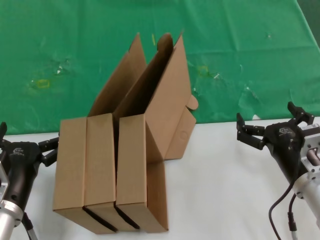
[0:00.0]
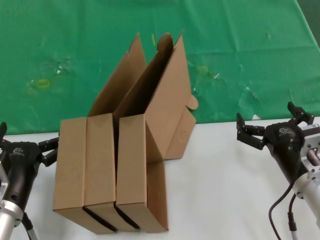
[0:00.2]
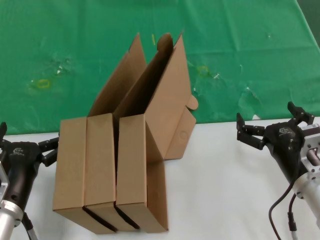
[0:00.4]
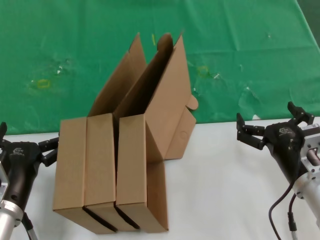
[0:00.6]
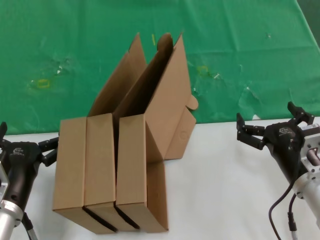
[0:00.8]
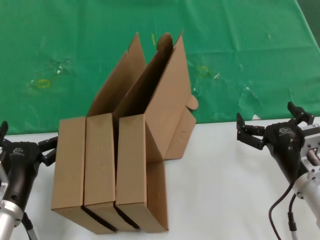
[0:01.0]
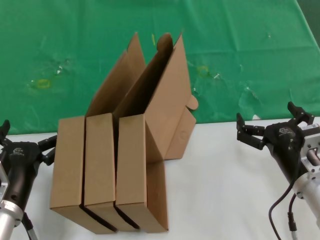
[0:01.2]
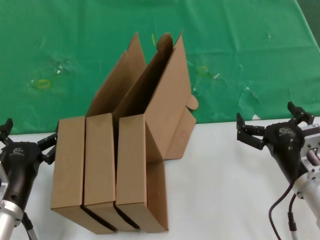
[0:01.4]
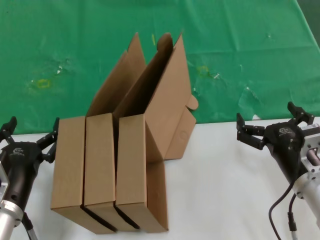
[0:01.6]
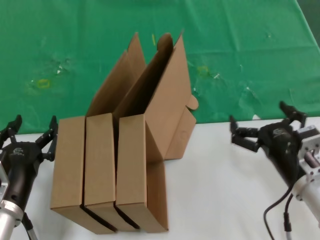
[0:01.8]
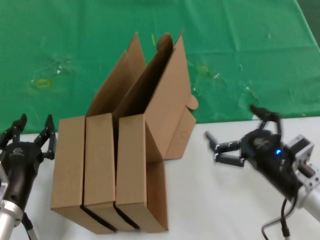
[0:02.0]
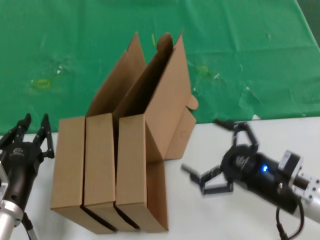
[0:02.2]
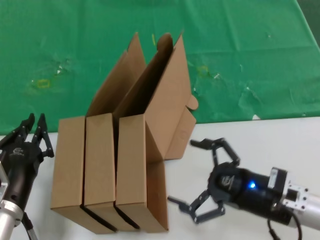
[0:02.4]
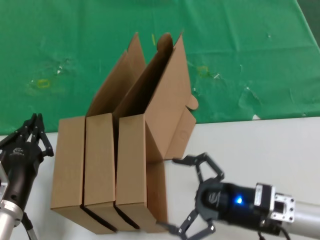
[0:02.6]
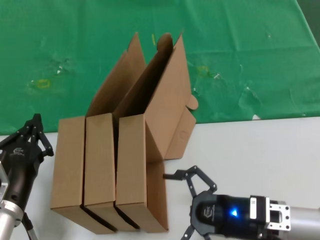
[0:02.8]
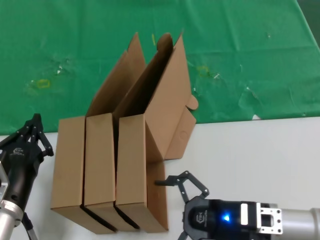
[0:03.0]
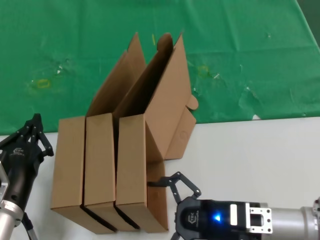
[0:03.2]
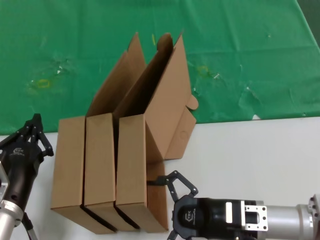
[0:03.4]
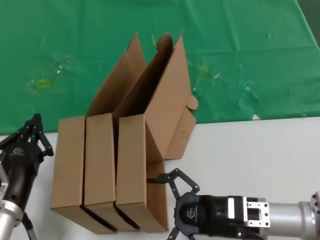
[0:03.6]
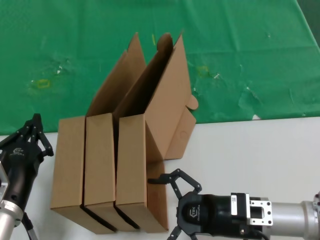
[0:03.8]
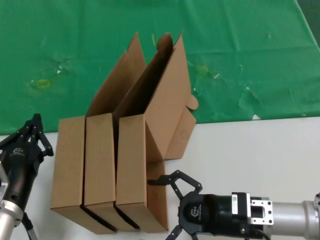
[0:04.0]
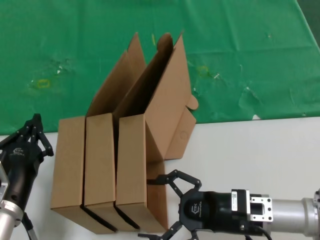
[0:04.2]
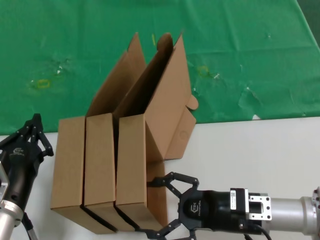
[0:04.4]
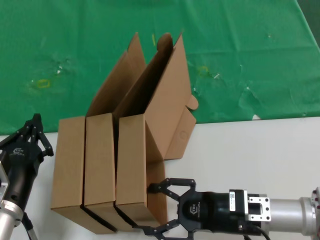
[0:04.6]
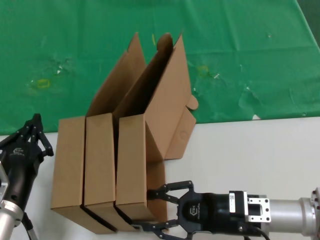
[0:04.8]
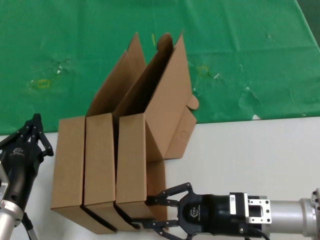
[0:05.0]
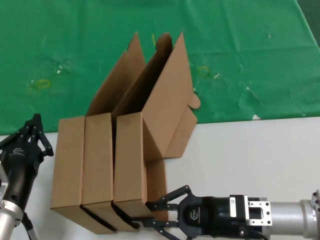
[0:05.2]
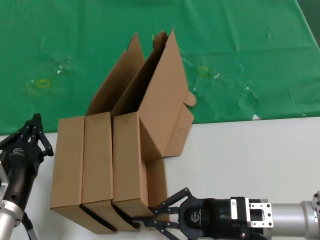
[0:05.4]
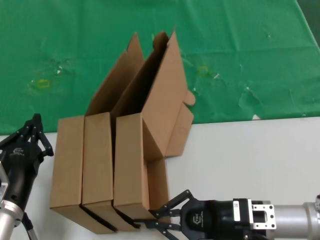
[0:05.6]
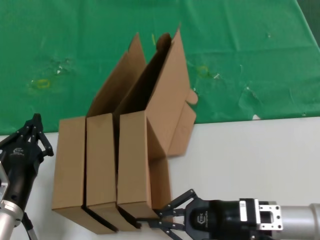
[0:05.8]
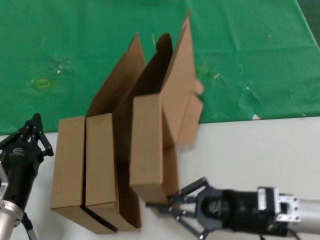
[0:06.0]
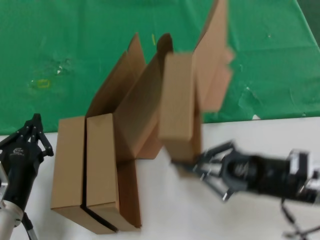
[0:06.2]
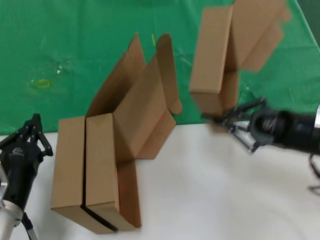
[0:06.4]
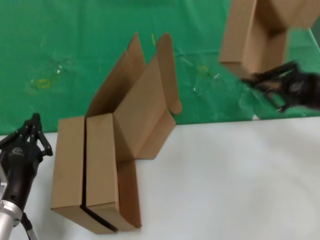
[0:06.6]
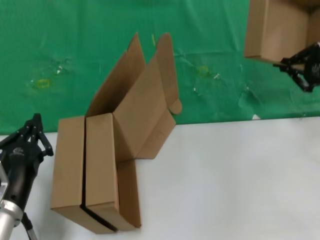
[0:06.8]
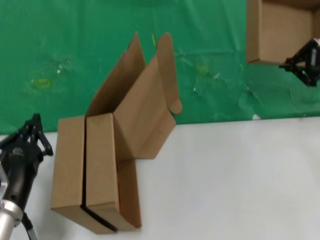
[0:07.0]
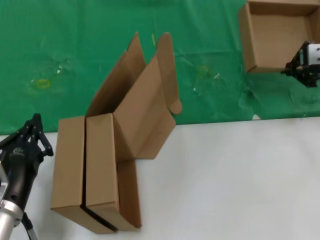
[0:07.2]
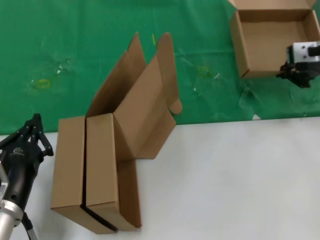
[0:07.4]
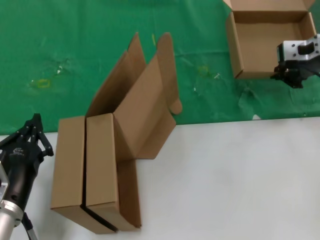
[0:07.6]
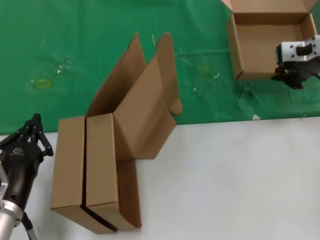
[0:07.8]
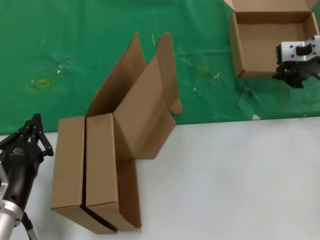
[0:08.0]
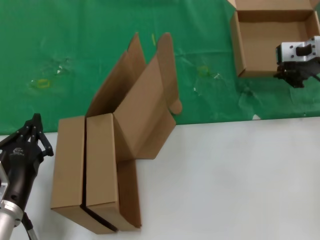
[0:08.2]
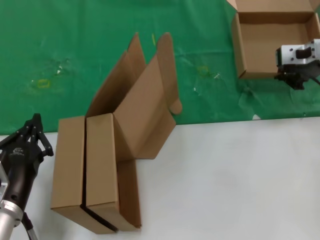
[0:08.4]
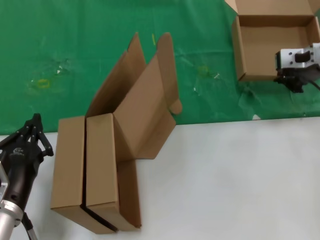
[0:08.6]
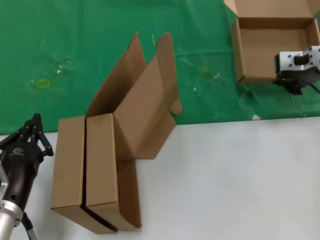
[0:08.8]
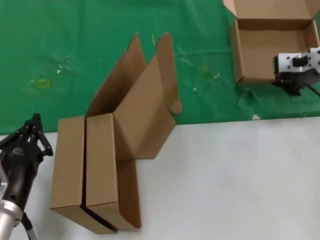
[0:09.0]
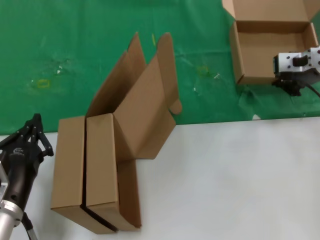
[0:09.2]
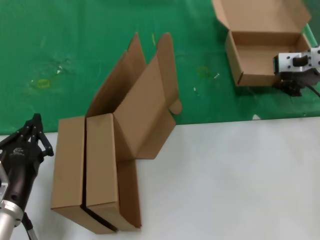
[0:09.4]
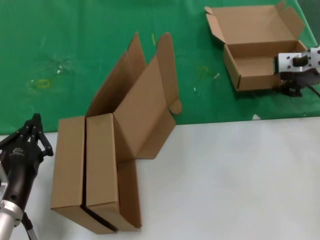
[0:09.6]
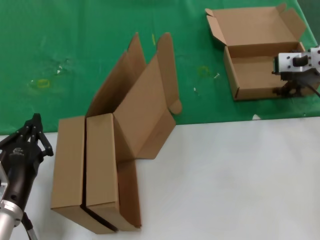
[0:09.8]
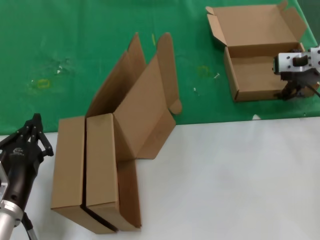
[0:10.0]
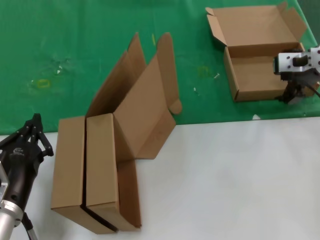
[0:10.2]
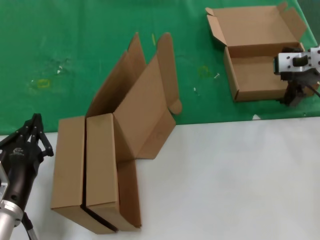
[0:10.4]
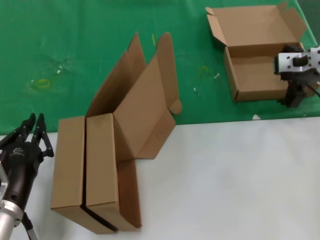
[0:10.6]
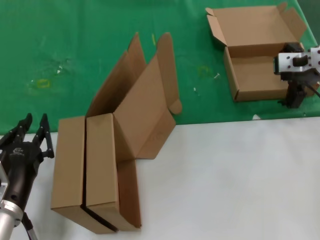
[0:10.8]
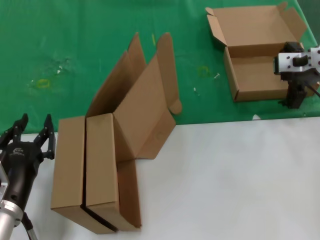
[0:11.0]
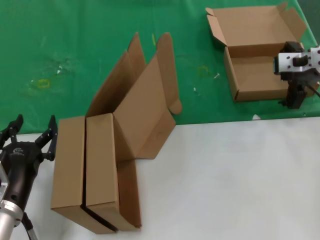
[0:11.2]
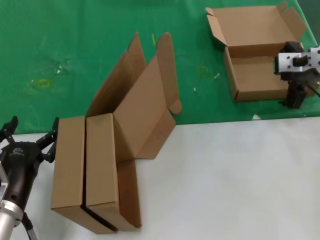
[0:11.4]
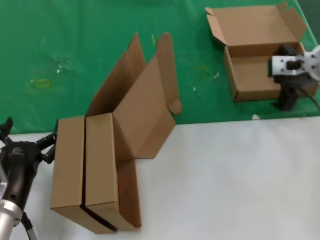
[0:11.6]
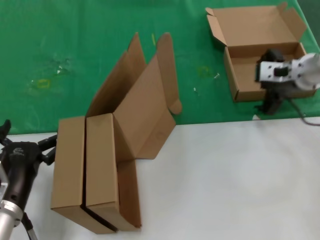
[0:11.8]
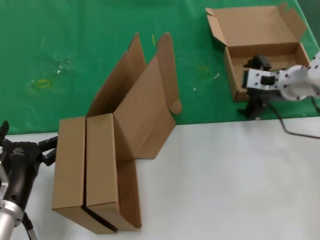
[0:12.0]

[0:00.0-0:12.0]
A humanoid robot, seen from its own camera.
Task of the whole recording: pick up the paper box and put it at the back.
Step, 0:00.0 to 0:05.4: Grasp the paper box.
Step, 0:05.6 to 0:09.8: Place the paper box on the table.
0:00.0 to 0:01.6: Neither hand changes place.
0:03.0 to 0:06.0: The hands make only small movements.
0:06.0 to 0:07.6: The right hand moves upward and forward, roughly 30 cm.
0:07.6 to 0:09.0: The hands stay close to where they were, moving slightly.
0:09.0 to 0:10.4: Both hands stay about where they are.
0:10.4 to 0:12.0: The right hand moves downward, approximately 5 cm.

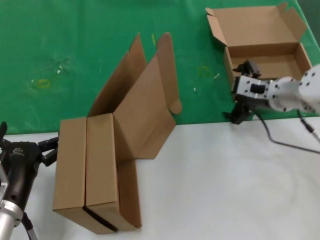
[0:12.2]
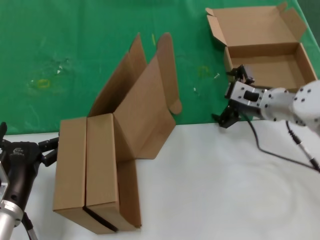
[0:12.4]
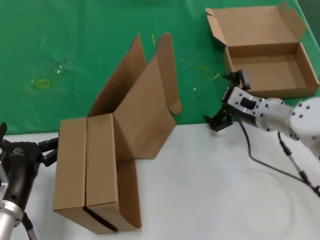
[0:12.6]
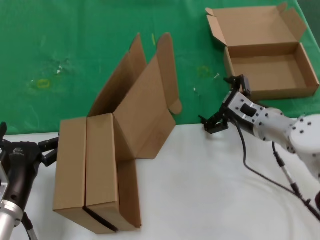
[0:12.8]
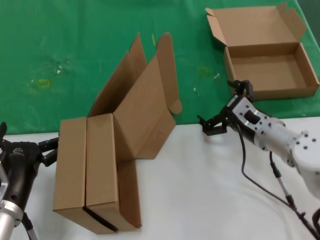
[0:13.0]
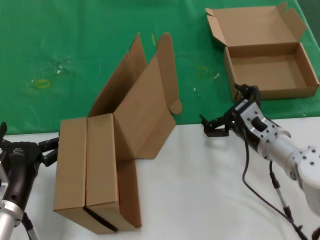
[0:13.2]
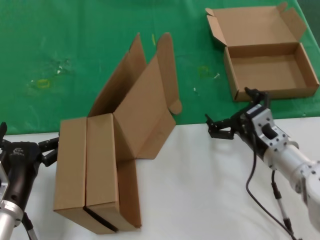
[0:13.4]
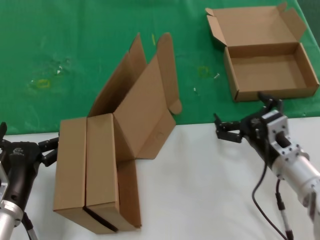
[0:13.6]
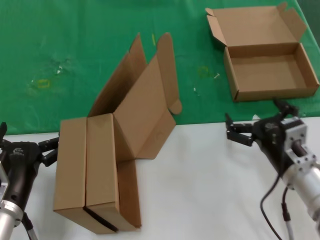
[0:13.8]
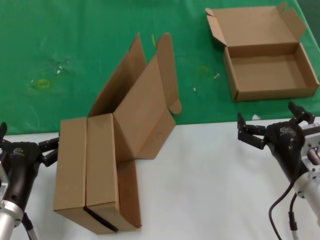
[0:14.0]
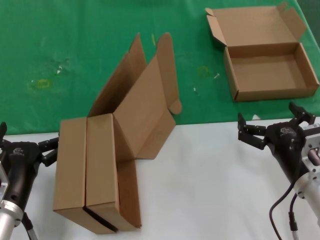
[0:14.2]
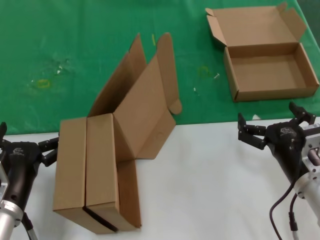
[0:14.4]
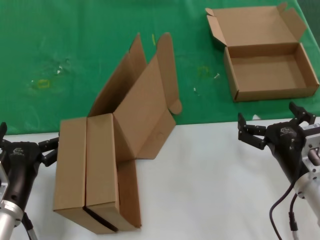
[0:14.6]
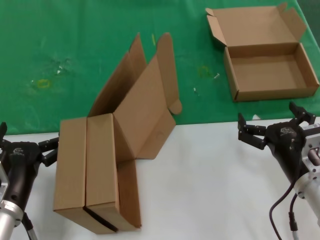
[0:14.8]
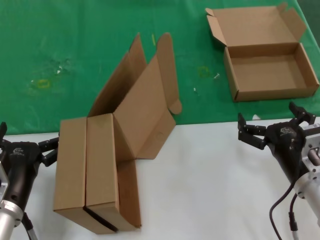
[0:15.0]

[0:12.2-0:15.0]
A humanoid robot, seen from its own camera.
Task of the whole recording: pick up the paper box and put it at the back.
0:12.2 to 0:13.6: The right hand moves backward and downward, approximately 20 cm.
0:13.6 to 0:15.0: The right hand travels backward by approximately 5 cm.
